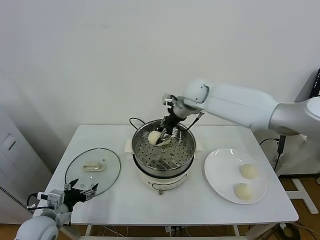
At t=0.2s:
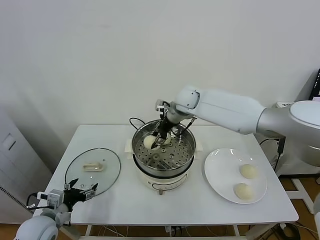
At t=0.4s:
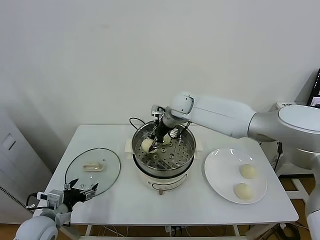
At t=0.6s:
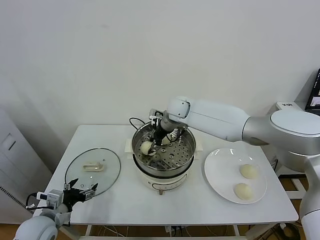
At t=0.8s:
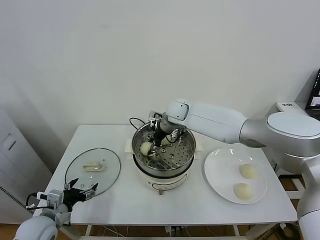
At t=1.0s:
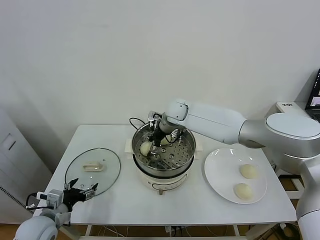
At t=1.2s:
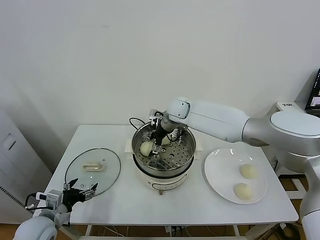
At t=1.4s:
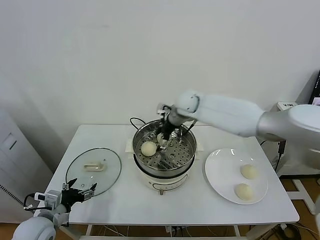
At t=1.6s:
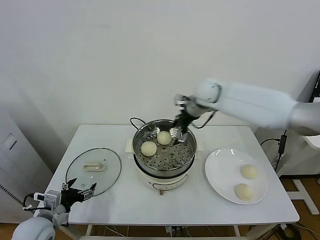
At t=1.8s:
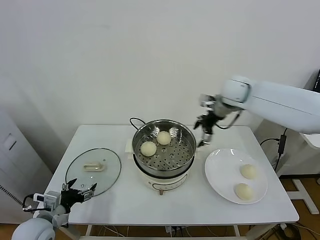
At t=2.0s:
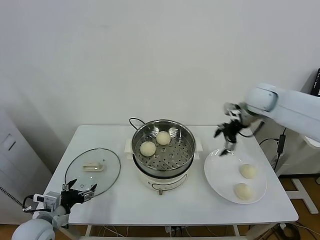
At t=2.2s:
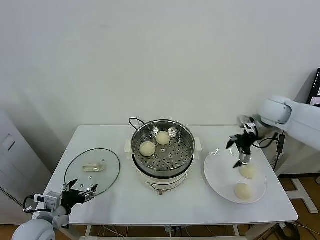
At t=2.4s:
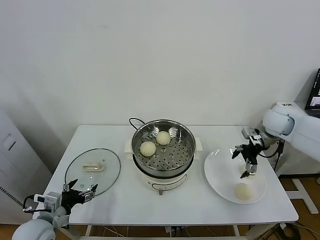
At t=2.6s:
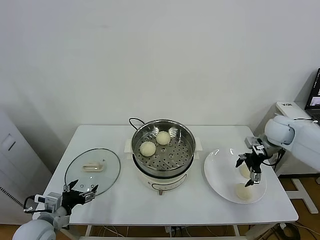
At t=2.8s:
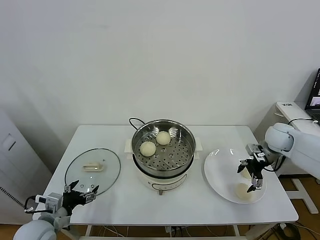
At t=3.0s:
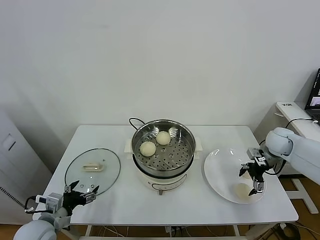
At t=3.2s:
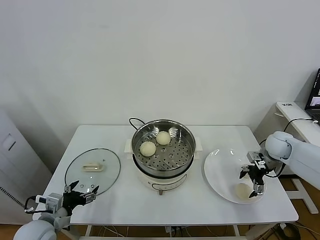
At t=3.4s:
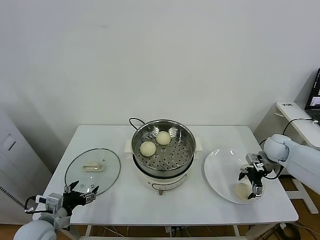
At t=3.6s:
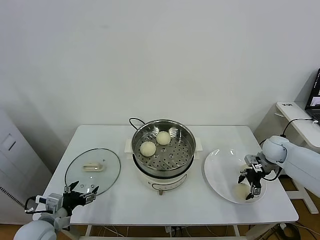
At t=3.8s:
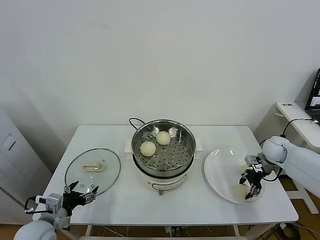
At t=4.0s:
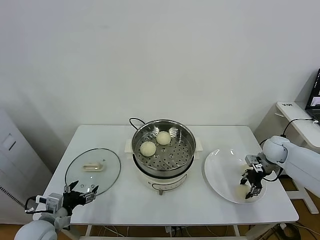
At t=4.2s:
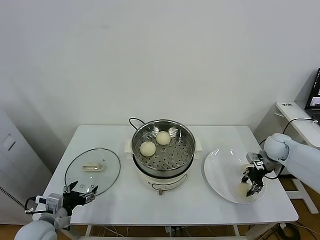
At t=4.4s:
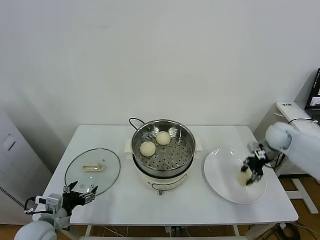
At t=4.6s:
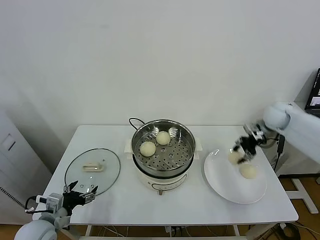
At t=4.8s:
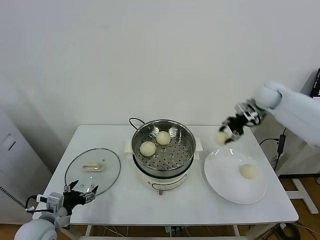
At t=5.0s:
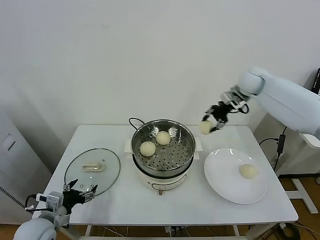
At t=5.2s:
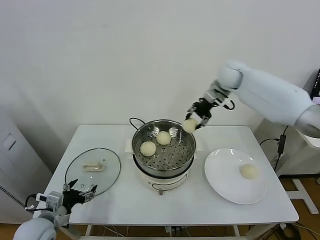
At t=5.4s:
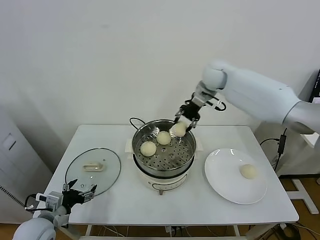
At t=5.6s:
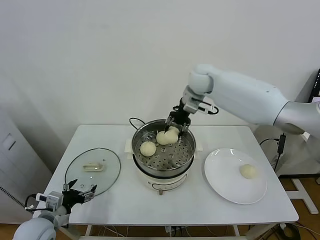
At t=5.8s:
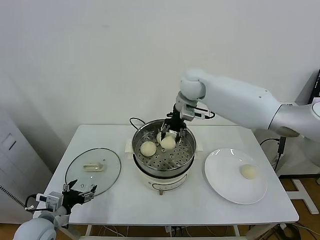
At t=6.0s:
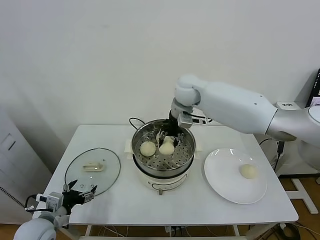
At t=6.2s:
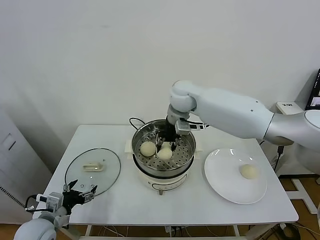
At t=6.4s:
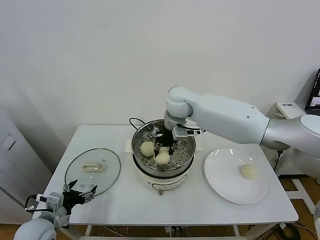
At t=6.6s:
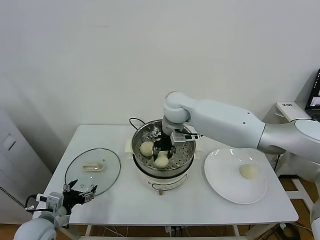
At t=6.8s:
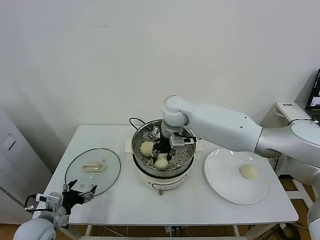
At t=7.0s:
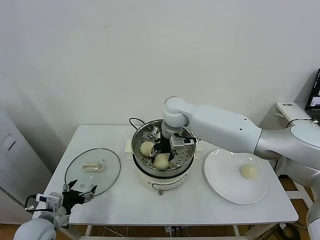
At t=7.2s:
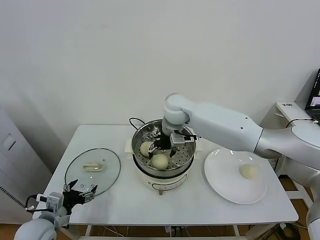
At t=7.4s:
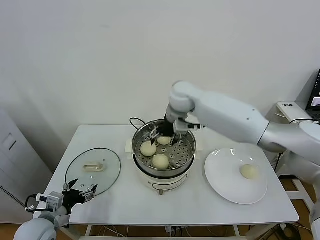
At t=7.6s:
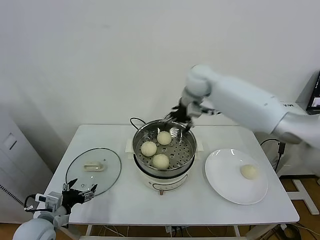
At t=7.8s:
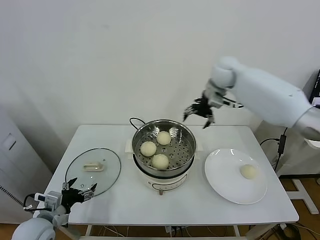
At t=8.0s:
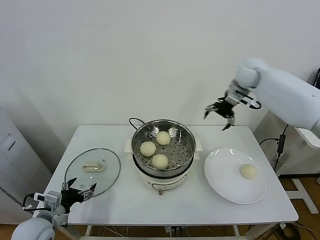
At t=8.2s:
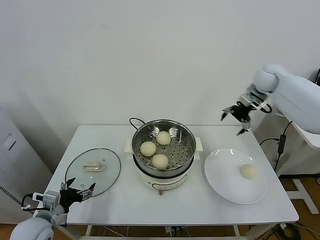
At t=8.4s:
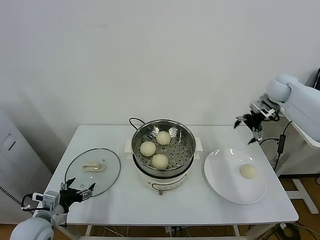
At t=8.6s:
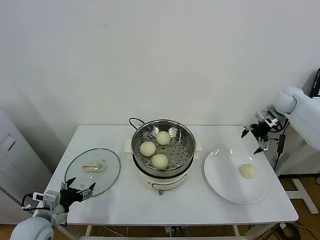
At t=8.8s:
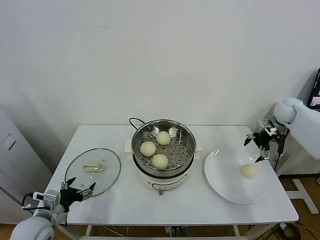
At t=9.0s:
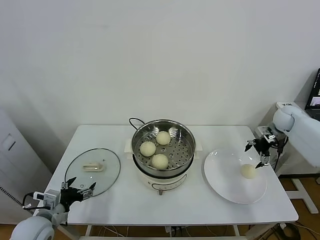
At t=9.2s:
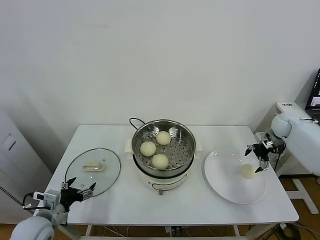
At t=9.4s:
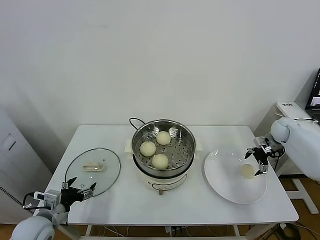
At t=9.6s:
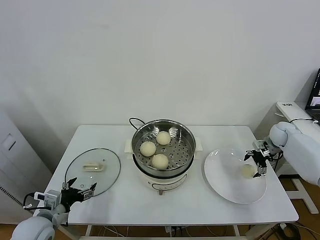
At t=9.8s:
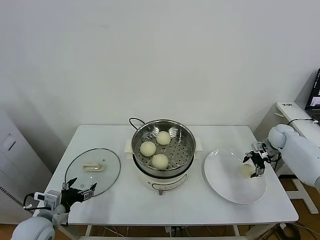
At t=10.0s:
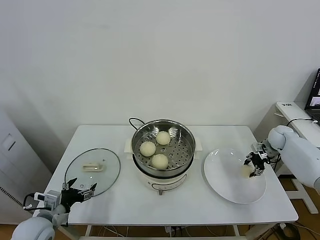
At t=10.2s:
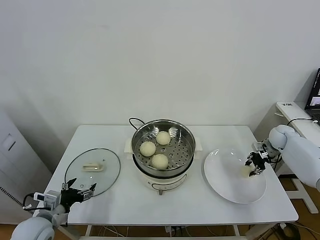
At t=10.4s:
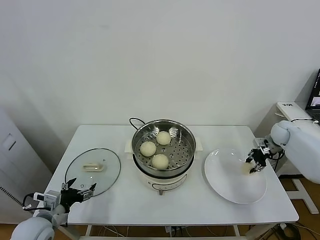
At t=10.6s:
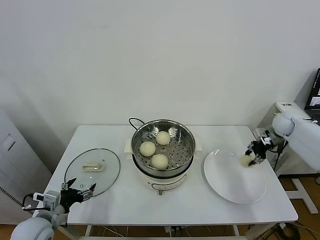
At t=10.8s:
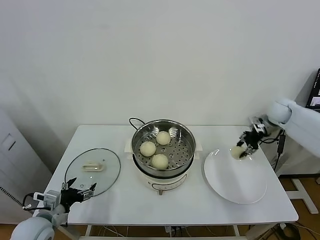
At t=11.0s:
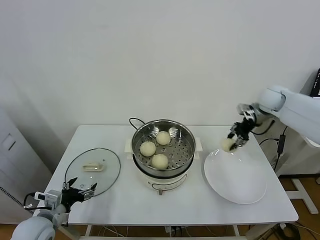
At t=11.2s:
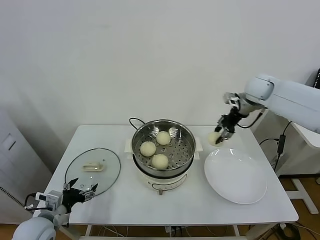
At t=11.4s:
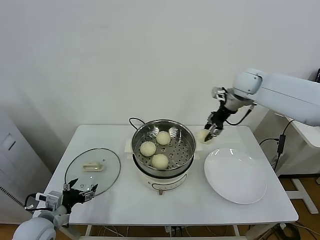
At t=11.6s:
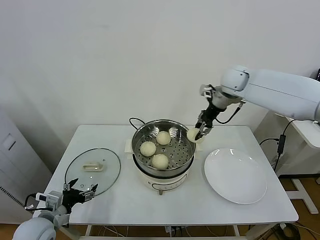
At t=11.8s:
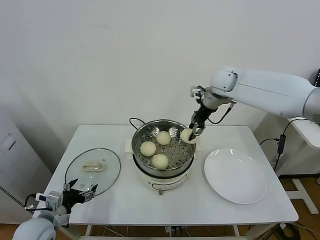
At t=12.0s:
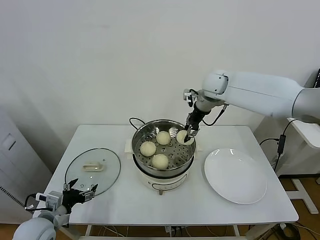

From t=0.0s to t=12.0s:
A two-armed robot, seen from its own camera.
Task of the whole recording: take steamed baozi put them in steamer.
Step, from t=1.4s to t=3.6s: Grasp the baozi in the plate with right gripper.
Step, from t=3.8s to t=7.2s: Place the baozi on the steamer with right gripper.
Step, from t=7.4s to t=10.0s: Grasp the baozi in the plate with right gripper.
From t=0.0s to t=1.6s: The right gripper heads to the right, covering some 10 cm, and opens.
From t=1.6s to t=3.0s: The right gripper heads to the right and downward, covering approximately 30 cm.
From t=3.0s to t=4.4s: The right gripper closes up.
From t=4.4s to t=6.0s: The right gripper shifts approximately 35 cm to the left.
From t=6.0s to t=7.6s: The right gripper moves to the right, roughly 5 cm, and opens its fingers.
From t=7.6s to t=9.0s: The right gripper heads to the right and downward, covering about 40 cm.
From t=9.0s to t=10.4s: The right gripper closes up.
From t=10.4s to t=12.0s: The right gripper goes about 35 cm to the left and upward.

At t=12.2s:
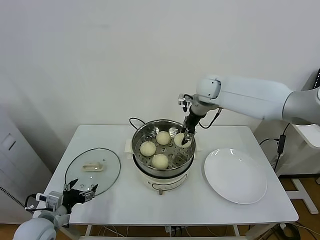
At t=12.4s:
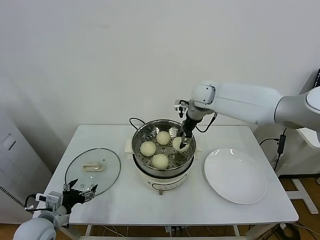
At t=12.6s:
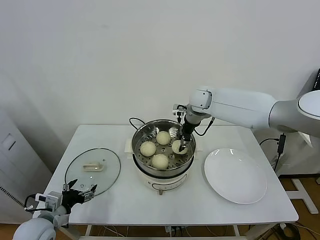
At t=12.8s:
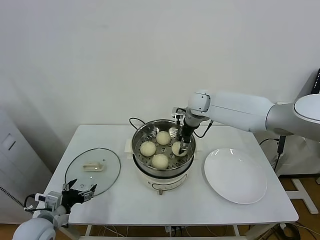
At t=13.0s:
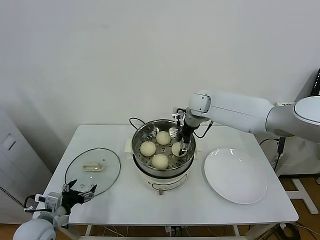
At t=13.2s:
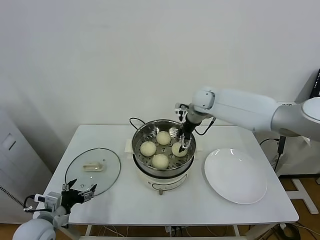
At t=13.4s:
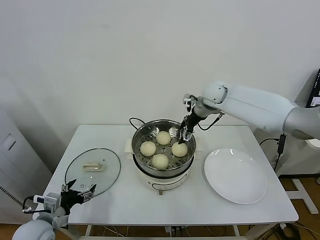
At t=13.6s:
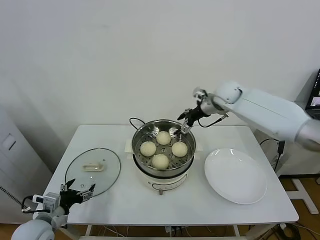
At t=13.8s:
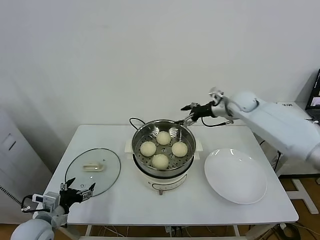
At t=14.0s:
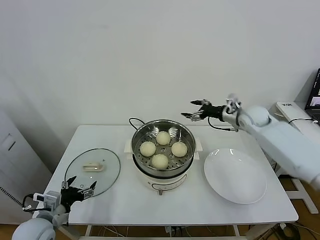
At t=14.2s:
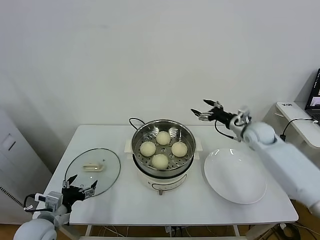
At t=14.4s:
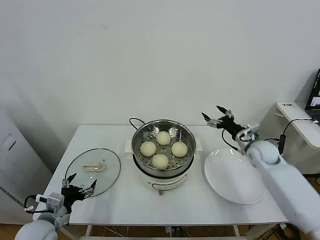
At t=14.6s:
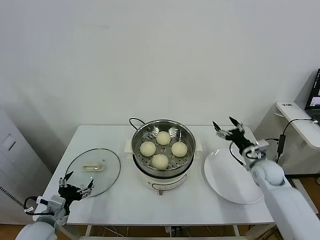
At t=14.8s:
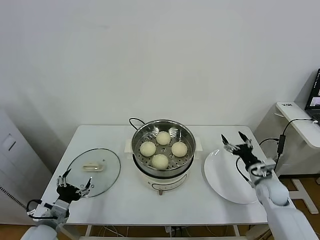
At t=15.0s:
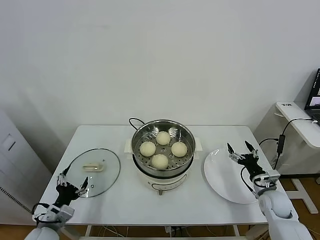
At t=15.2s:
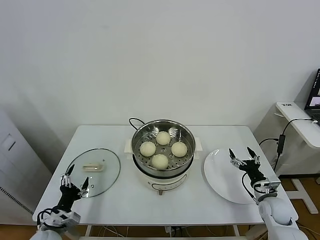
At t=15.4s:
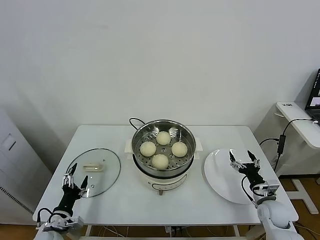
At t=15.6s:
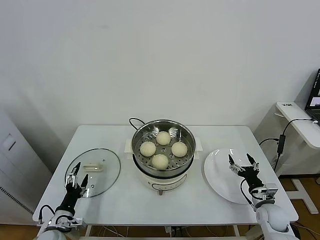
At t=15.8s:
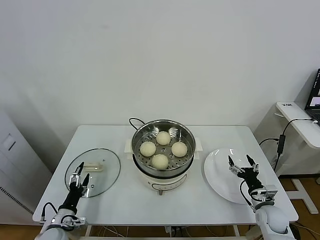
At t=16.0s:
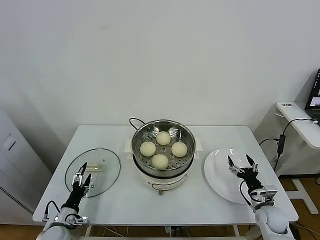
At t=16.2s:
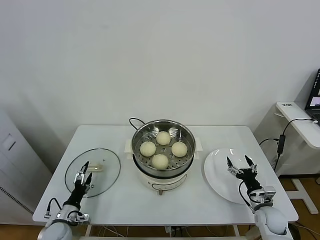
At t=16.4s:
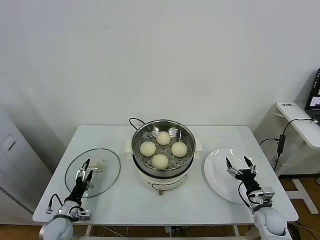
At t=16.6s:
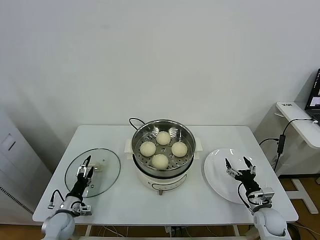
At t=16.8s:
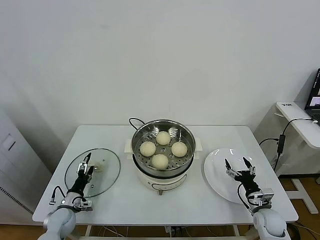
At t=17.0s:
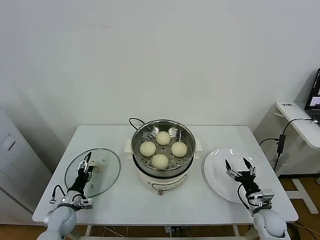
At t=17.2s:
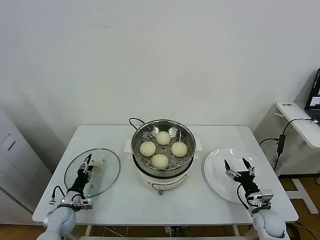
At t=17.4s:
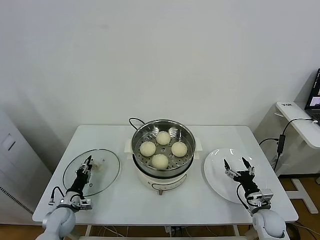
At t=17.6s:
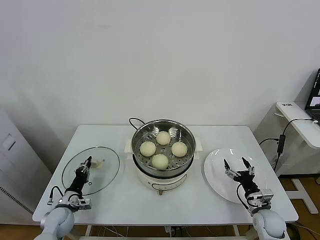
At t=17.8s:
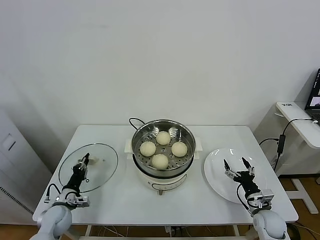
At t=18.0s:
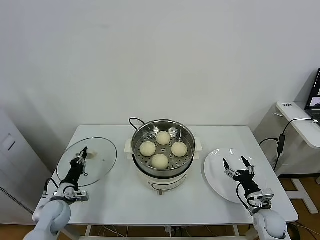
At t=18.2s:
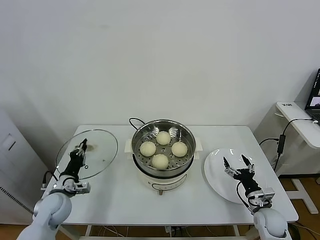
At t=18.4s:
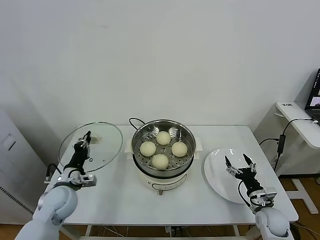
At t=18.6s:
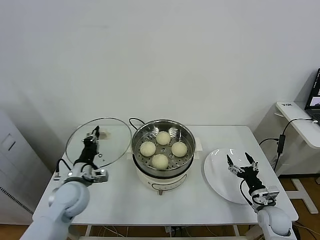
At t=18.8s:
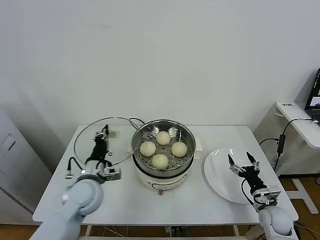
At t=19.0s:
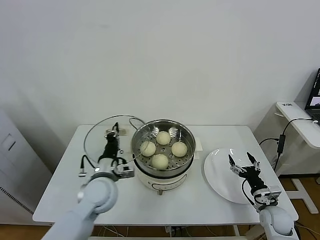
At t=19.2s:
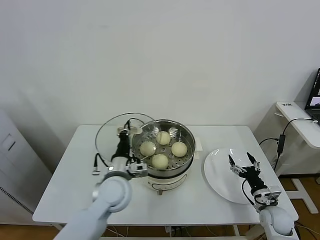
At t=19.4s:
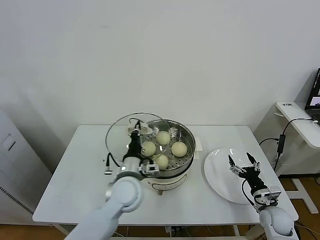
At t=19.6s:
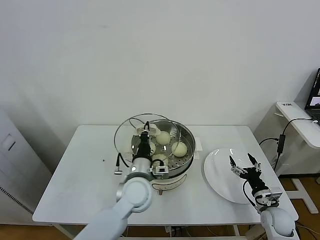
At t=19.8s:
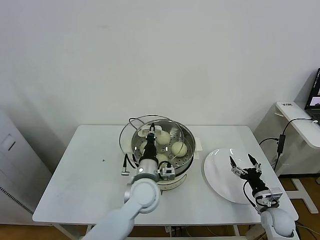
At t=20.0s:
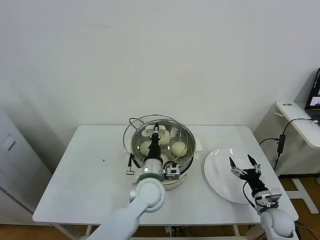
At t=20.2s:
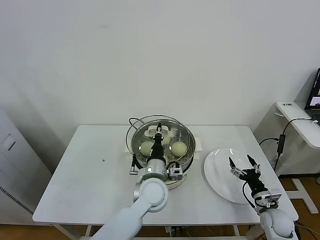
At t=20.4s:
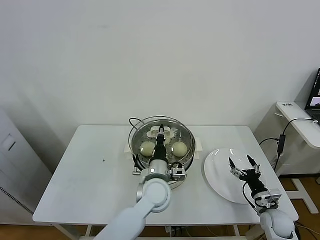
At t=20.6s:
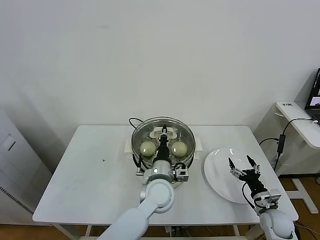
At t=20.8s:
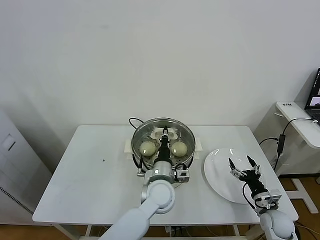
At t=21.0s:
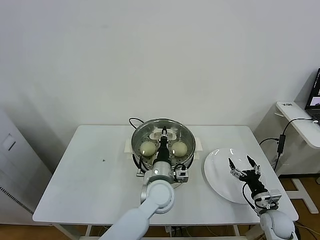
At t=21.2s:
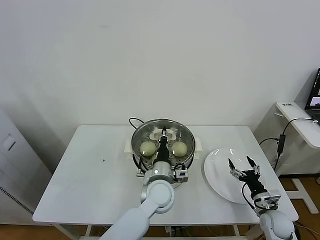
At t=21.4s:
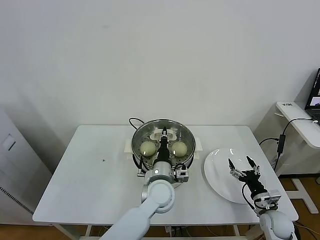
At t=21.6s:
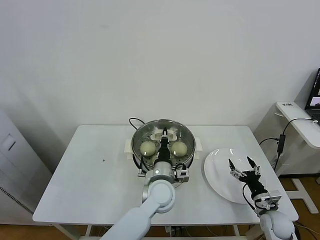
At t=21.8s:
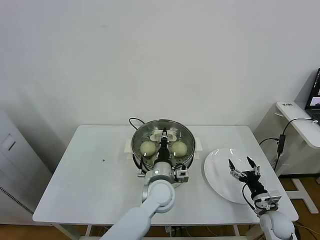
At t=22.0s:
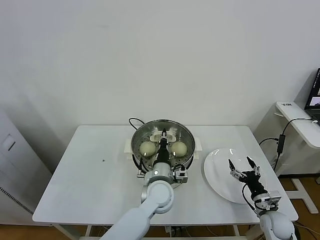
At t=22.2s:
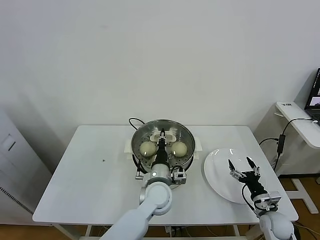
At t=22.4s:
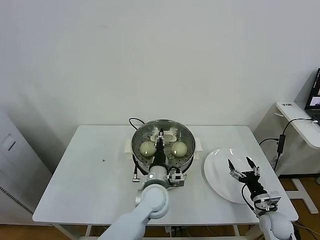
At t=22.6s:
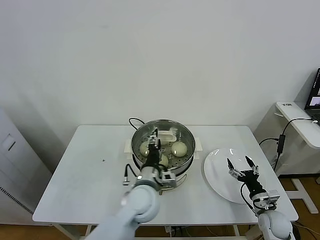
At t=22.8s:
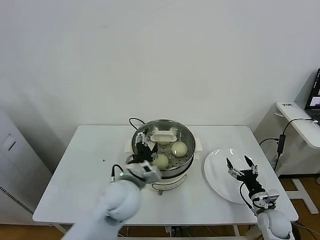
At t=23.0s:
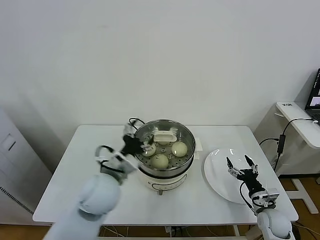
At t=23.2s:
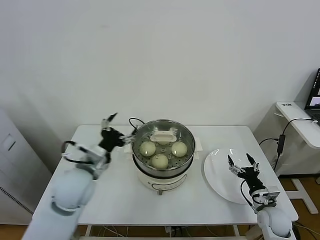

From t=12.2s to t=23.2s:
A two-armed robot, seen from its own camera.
Task of the whole recording: take steamed baozi put them in steamer.
Step, from t=13.4s to t=17.6s: Grasp the pot lid with left gripper.
Step, from t=18.0s to t=23.0s: Place the pot lid on the steamer with left gripper.
From t=12.2s to t=13.8s: The right gripper goes about 15 cm to the right and downward, and opens its fingers.
From t=13.8s to t=15.4s: The left gripper heads downward, covering about 10 cm. The right gripper goes some 40 cm downward and backward.
From t=15.4s to t=17.0s: The left gripper goes roughly 10 cm forward and downward.
From t=17.0s to t=18.4s: The left gripper shifts some 15 cm upward, and closes up.
From t=18.4s to t=20.0s: The left gripper moves to the right, some 30 cm.
From t=20.0s to t=21.6s: The grippers stay close to where they were, moving slightly.
From t=21.6s to t=23.2s: The left gripper heads to the left and upward, covering roughly 25 cm, and opens up.
